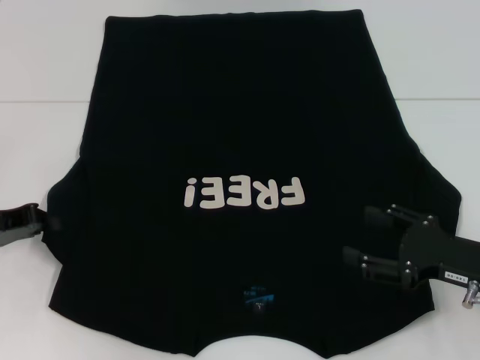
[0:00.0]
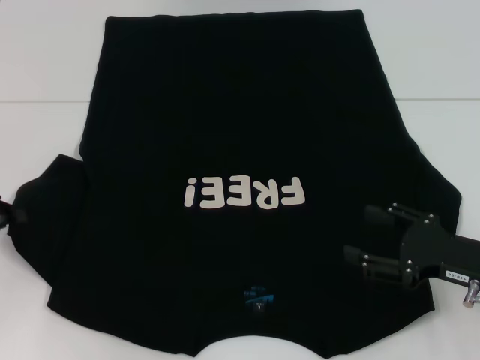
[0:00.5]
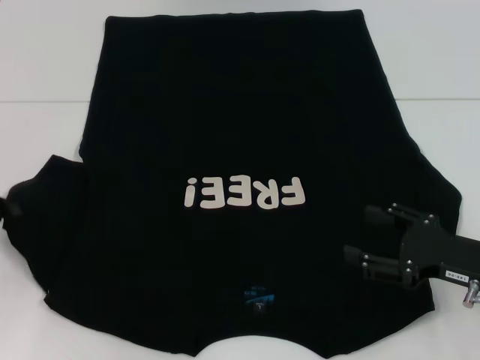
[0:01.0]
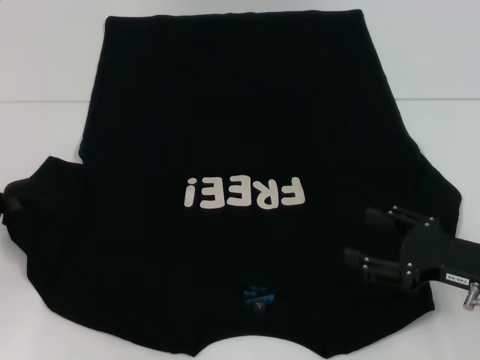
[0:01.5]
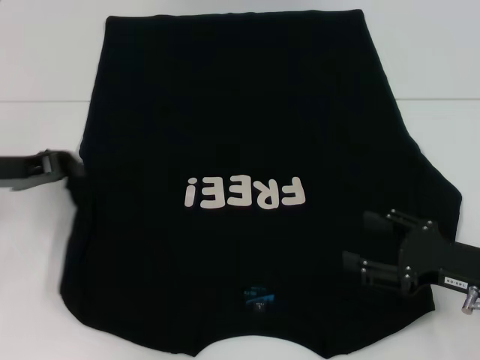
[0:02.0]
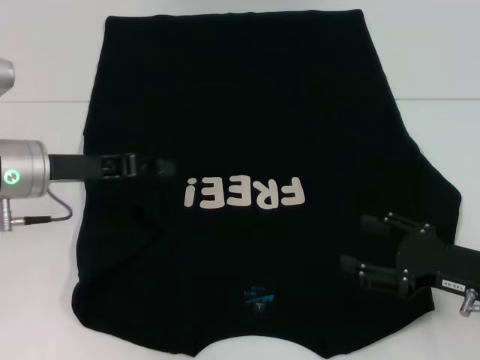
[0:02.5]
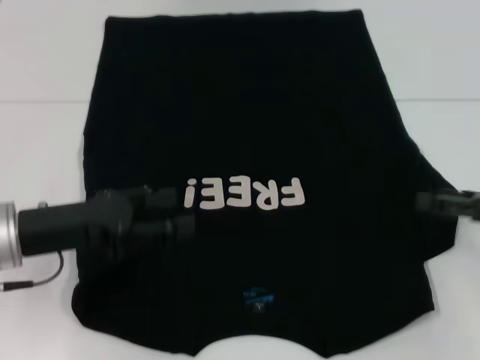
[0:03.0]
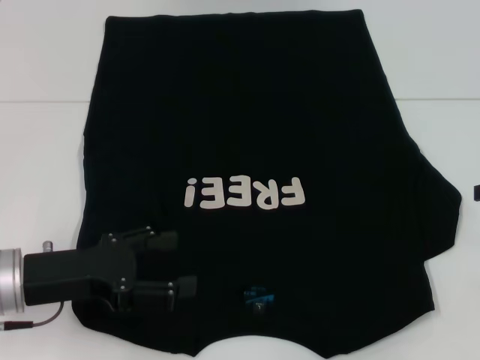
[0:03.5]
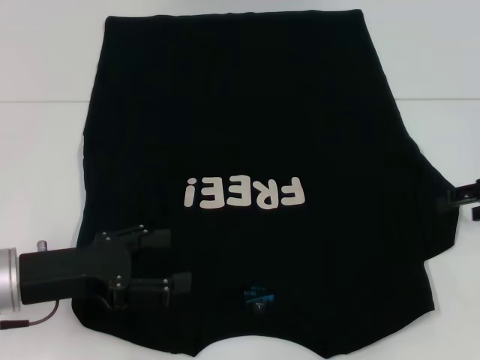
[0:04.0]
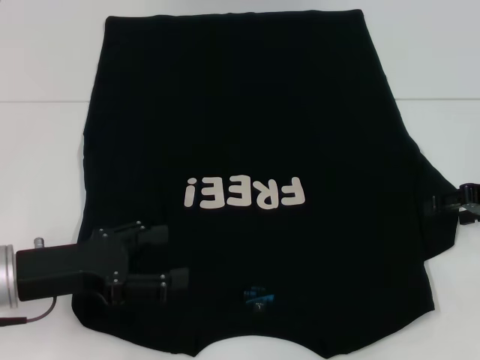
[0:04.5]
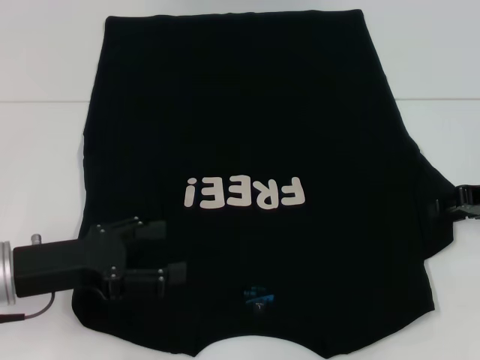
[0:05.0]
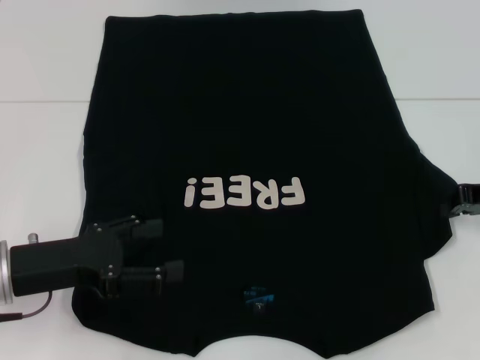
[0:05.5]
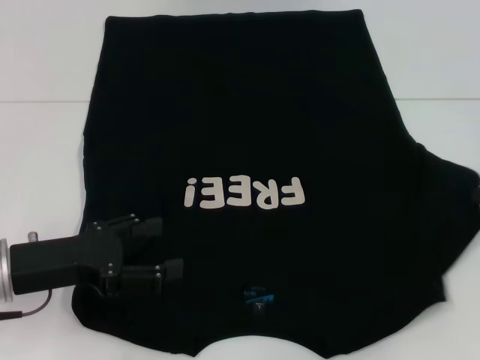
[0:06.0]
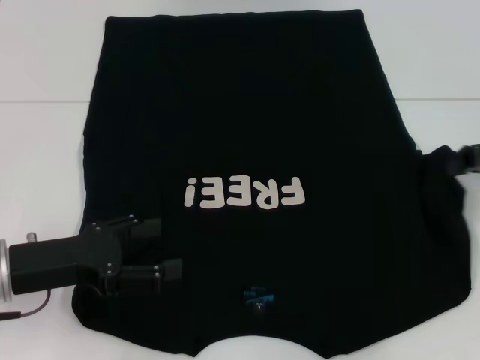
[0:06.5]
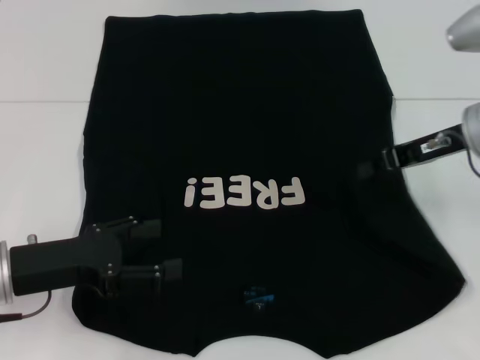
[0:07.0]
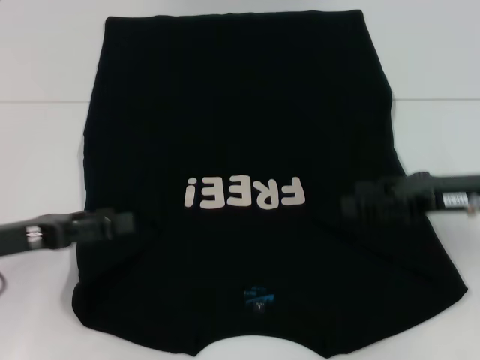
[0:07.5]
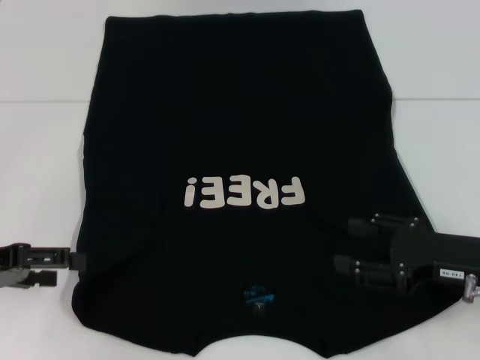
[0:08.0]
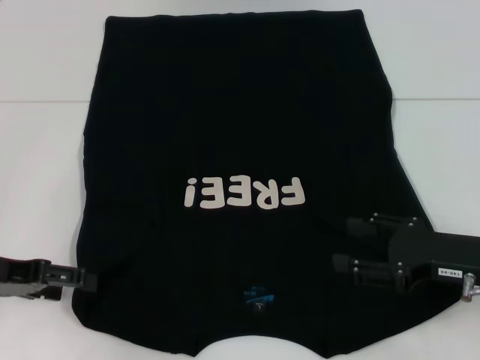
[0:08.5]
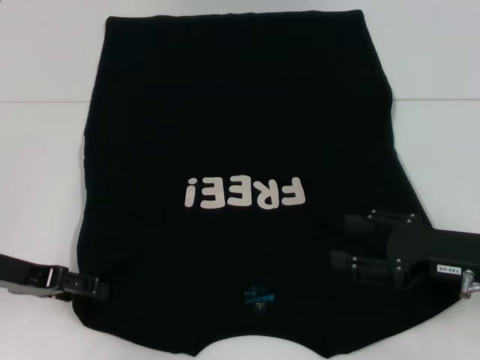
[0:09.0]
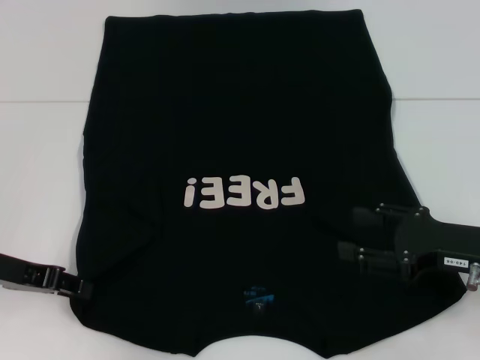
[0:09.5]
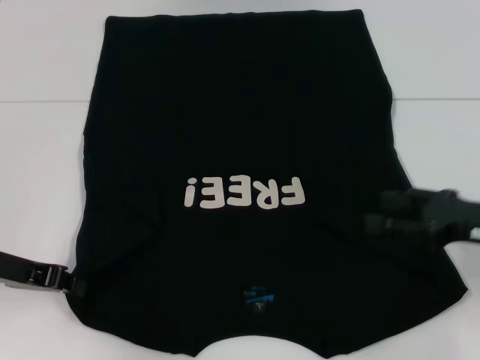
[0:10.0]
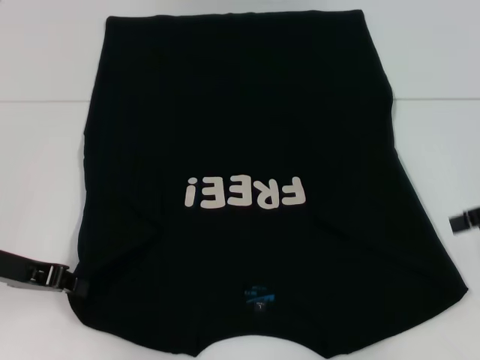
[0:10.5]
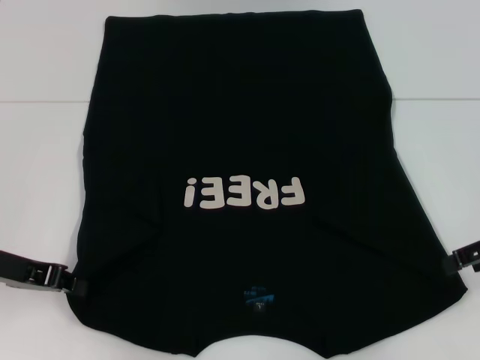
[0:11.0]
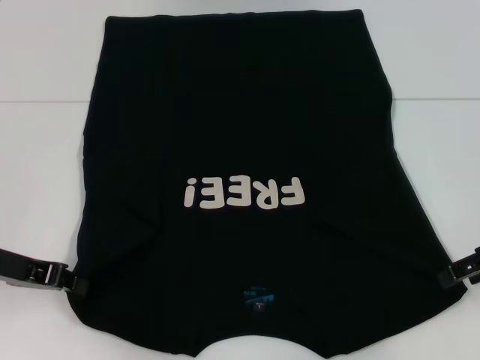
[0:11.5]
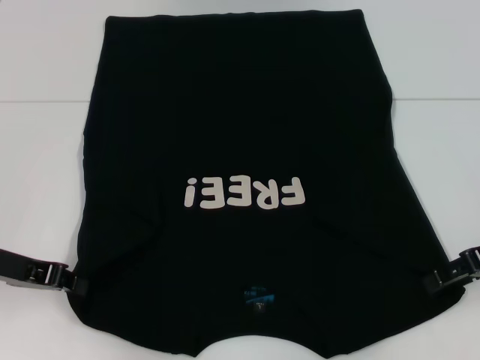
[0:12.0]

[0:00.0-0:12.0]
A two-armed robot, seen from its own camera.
Step, 0.0 to 2.5 s: Fold the bottom left sleeve with your left hand.
Step, 3.0 to 7.0 s: Fold the bottom right sleeve with your right hand.
Step, 7.5 to 10.0 s: Grab the bottom left corner with your left hand.
0.0 to 2.0 s: The left gripper changes place by roughly 5 cm.
2.0 to 4.0 s: The left gripper travels backward and to the right by about 10 cm, and opens up. The right gripper shifts roughly 15 cm forward, upward and to the right.
4.0 to 6.0 s: The right gripper closes.
6.0 to 8.0 s: The left gripper goes roughly 10 cm to the left. The right gripper shifts some 15 cm backward, to the left and downward, and opens up.
8.0 to 10.0 s: The left gripper moves about 5 cm, and closes its fingers.
10.0 to 12.0 s: The right gripper travels upward and back again, about 10 cm each way.

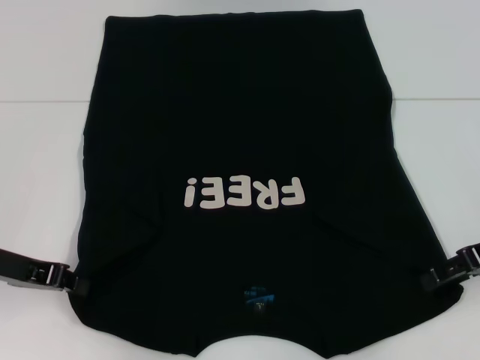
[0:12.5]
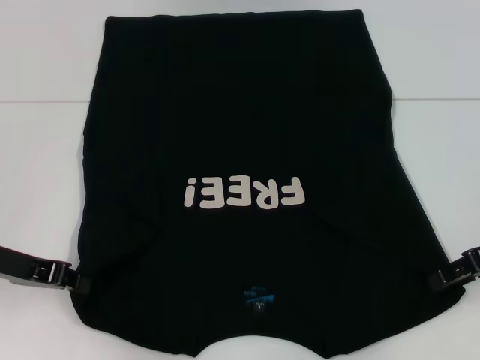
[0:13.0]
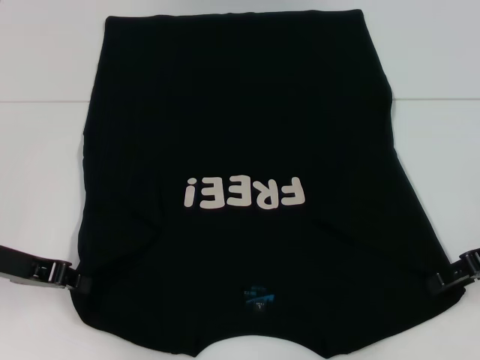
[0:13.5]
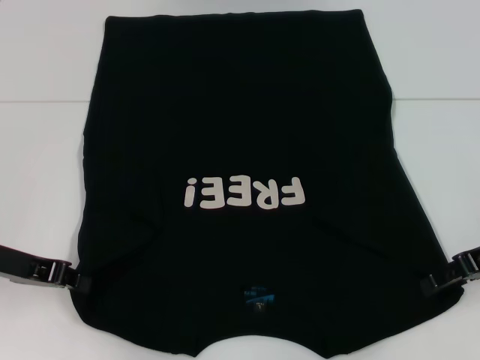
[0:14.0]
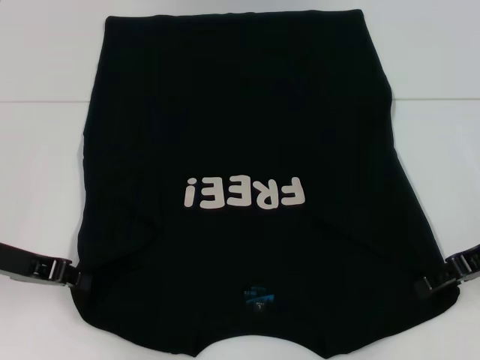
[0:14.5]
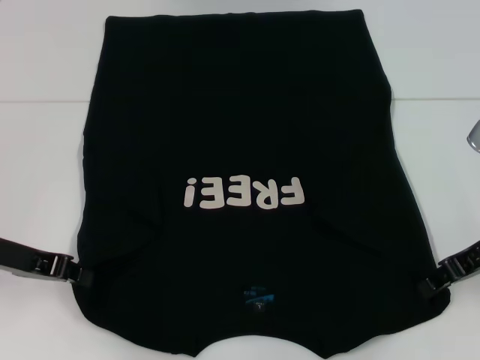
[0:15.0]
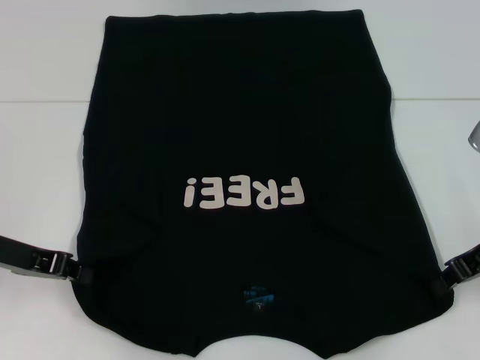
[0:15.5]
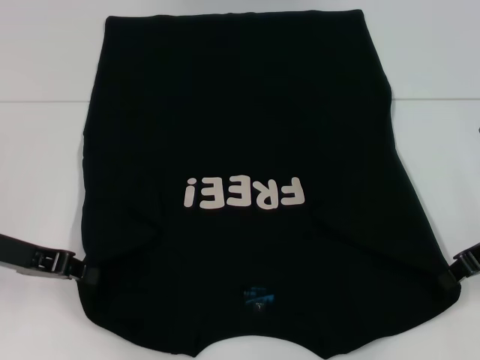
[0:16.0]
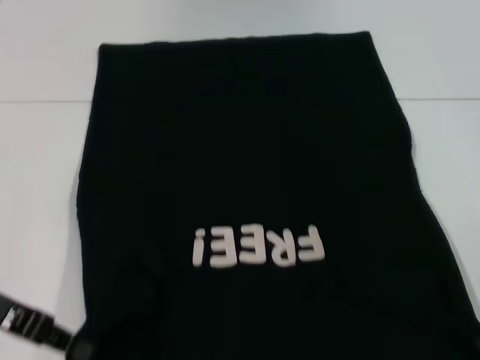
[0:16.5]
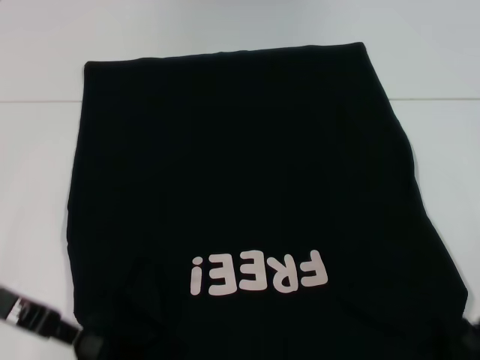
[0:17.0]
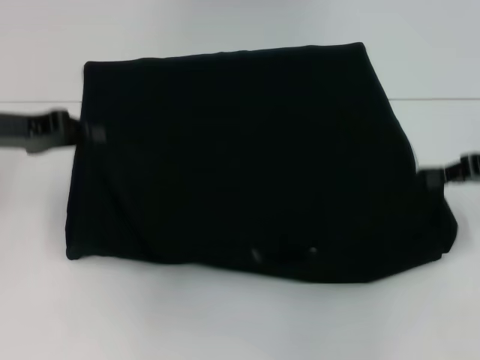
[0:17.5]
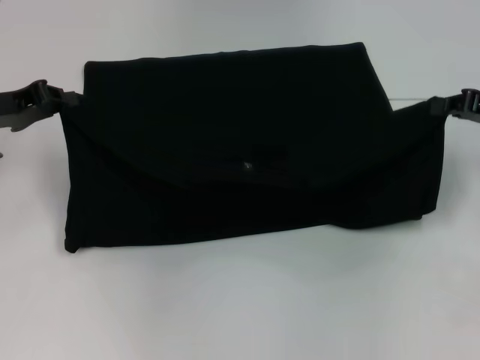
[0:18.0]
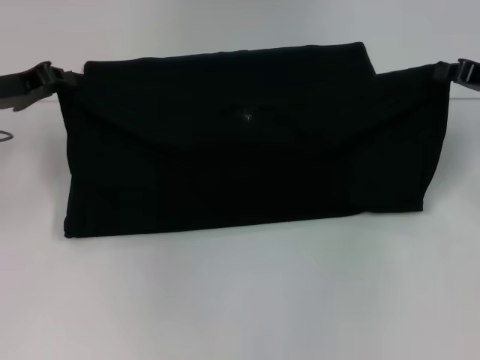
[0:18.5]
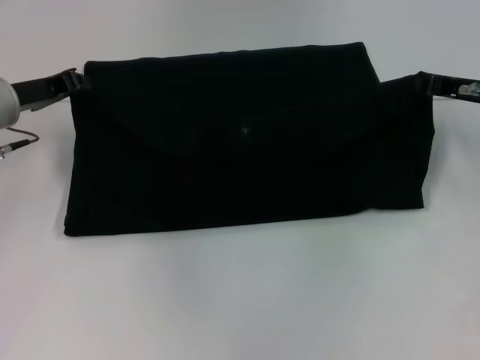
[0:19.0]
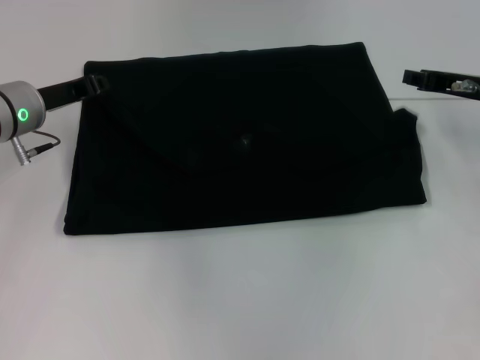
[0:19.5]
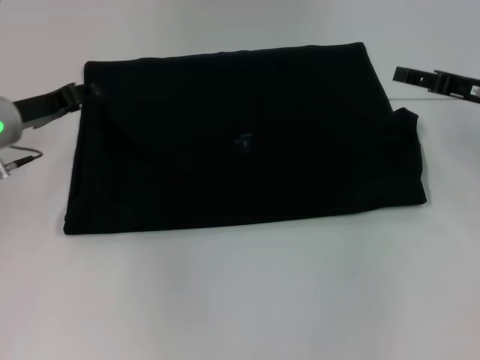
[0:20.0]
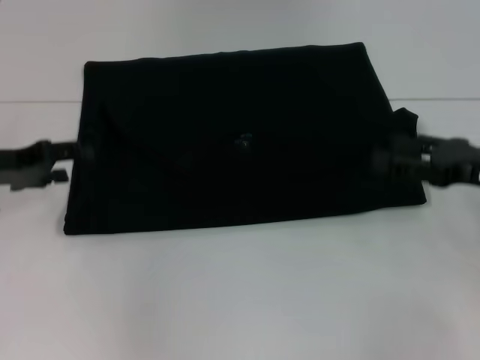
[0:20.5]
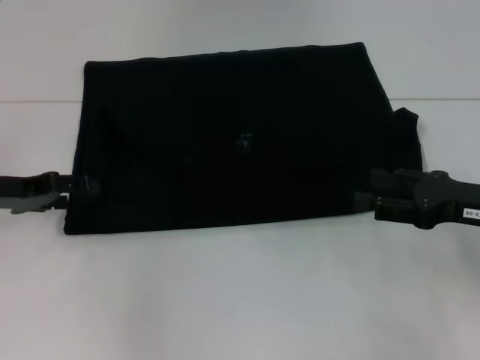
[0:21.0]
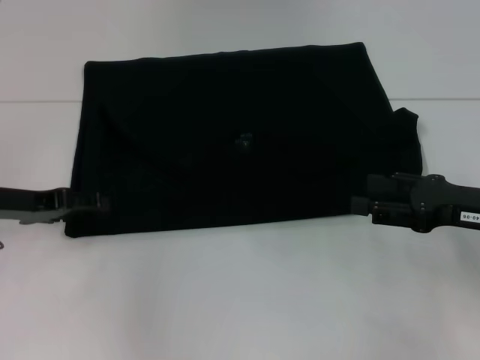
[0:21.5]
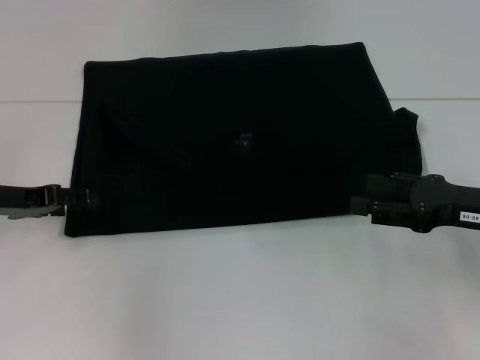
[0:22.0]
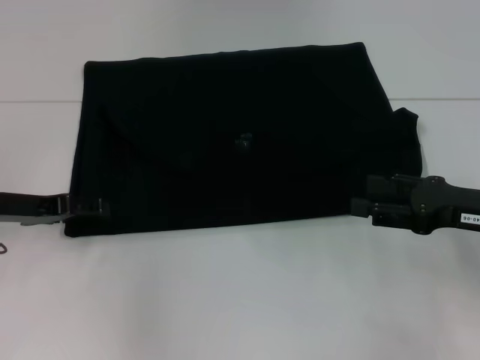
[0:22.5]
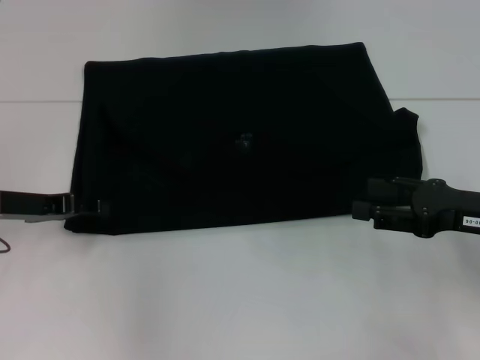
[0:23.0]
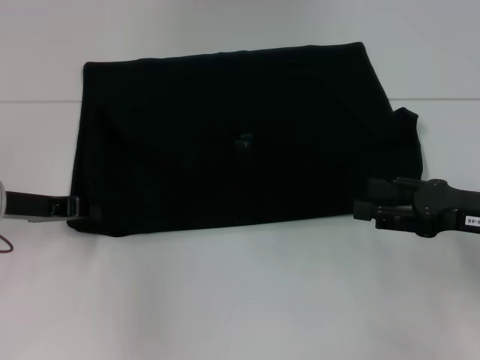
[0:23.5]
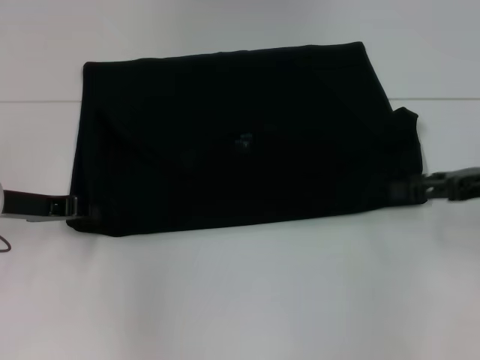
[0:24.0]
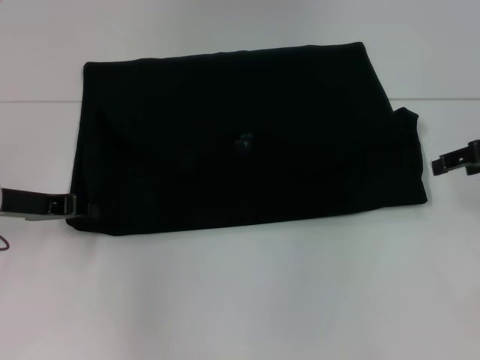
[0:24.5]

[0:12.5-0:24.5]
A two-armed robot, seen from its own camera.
Step, 12.5 to 15.5 s: Grab the bottom right corner with your right hand.
Step, 16.0 to 19.5 s: Fold the clothes with your left hand.
Step, 16.0 to 19.5 s: Fold the clothes with your right hand.
12.5 to 14.5 s: The two grippers keep their place.
14.5 to 16.5 s: The right gripper closes.
16.5 to 18.5 s: The grippers both shift forward by approximately 10 cm.
18.5 to 20.5 s: The left gripper ends up some 5 cm from where it was, and opens up; the right gripper goes approximately 10 cm backward, and opens.
20.5 to 22.5 s: The grippers stay close to where they were, moving slightly.
22.5 to 24.5 s: The left gripper closes up, while the right gripper heads forward and upward, covering roughly 10 cm.

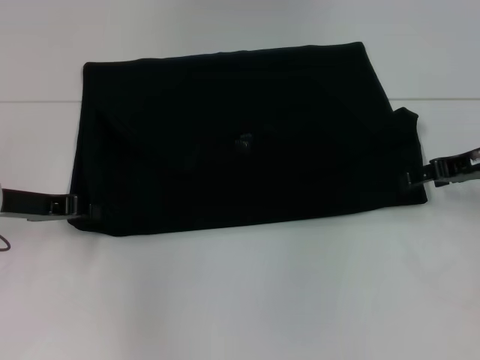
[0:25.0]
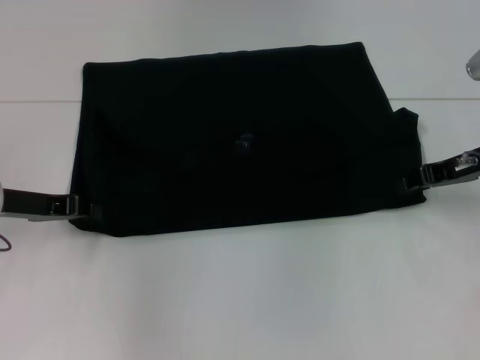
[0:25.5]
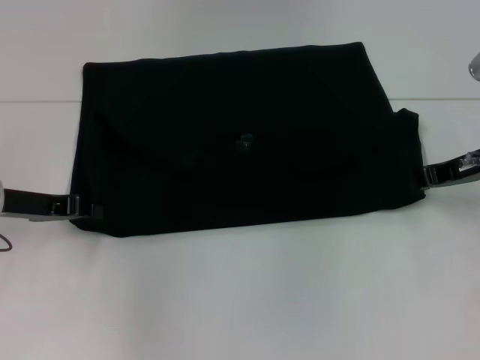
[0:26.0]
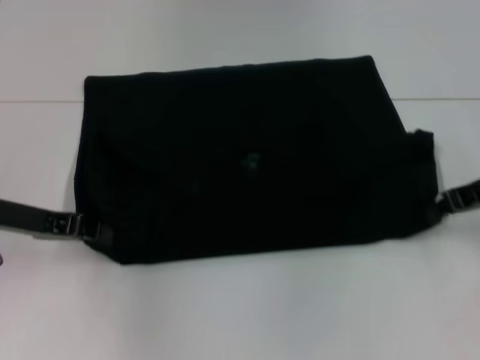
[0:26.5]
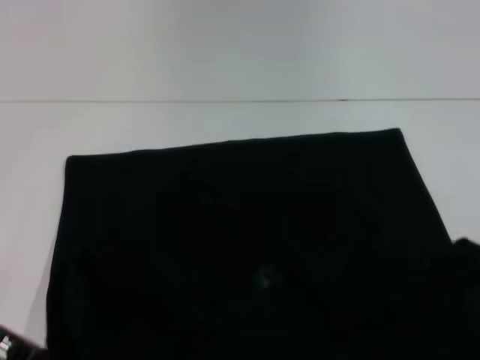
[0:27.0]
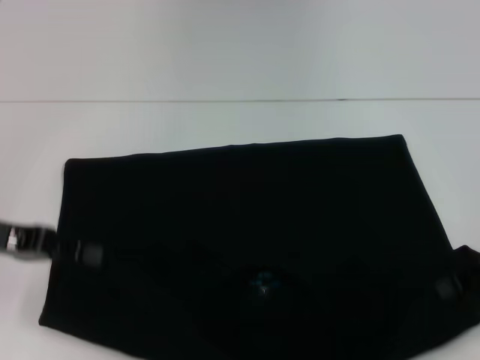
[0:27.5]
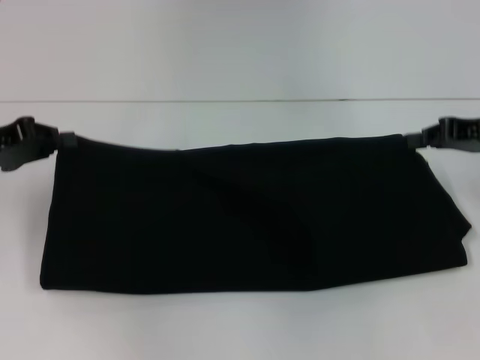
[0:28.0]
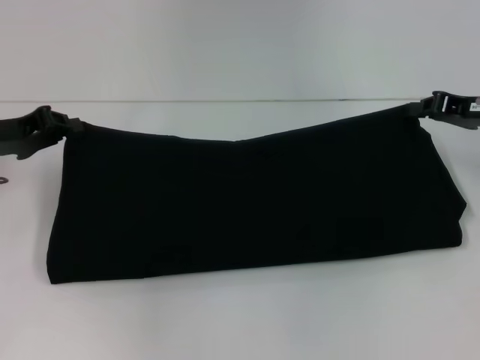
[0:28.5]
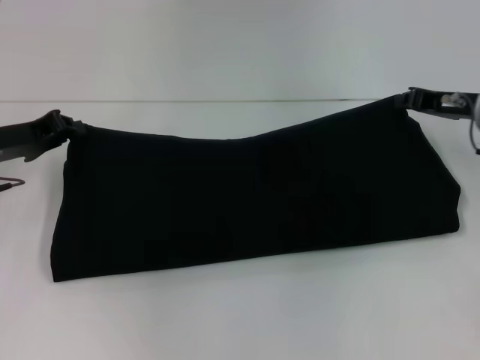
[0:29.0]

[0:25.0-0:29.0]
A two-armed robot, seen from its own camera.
Step, 25.0 to 27.0 s: Pull the clothes with your left hand.
Step, 25.0 to 27.0 s: Pull the clothes with your right hand.
25.0 to 27.0 s: The two grippers go some 10 cm backward. The right gripper closes its fingers.
27.0 to 29.0 s: The grippers both shift forward by about 10 cm.
